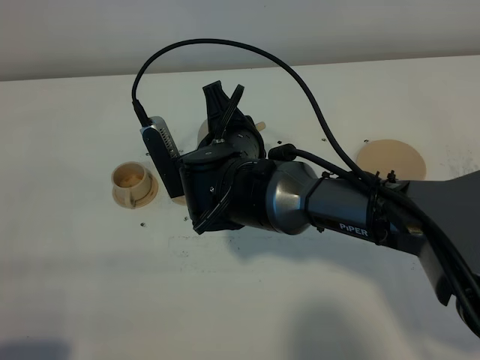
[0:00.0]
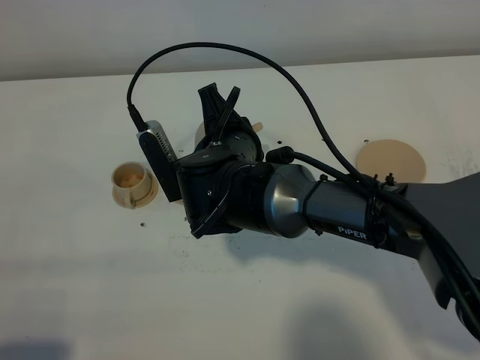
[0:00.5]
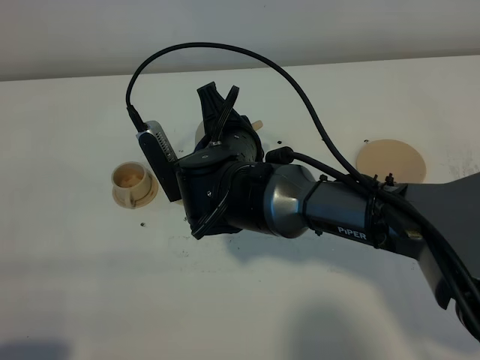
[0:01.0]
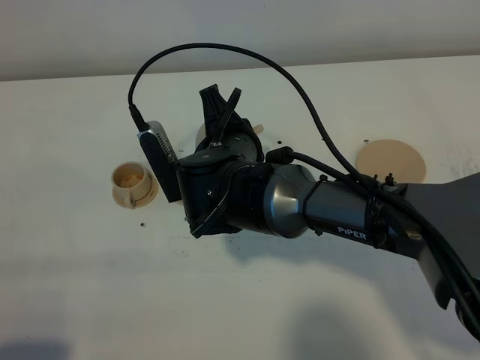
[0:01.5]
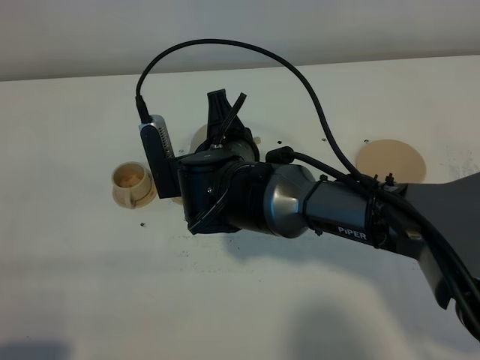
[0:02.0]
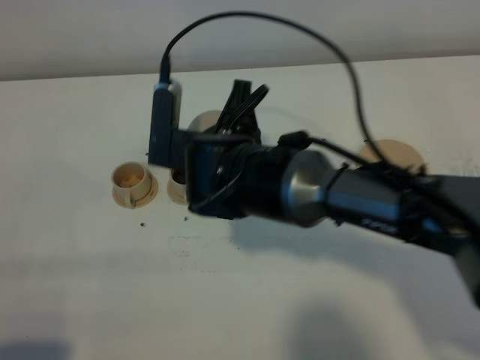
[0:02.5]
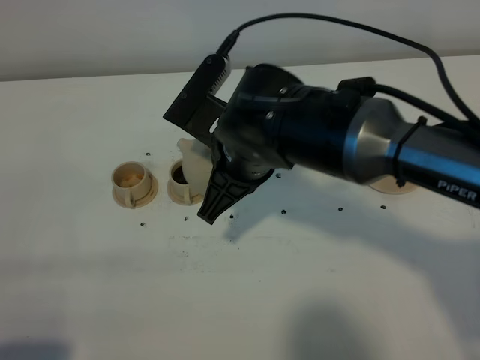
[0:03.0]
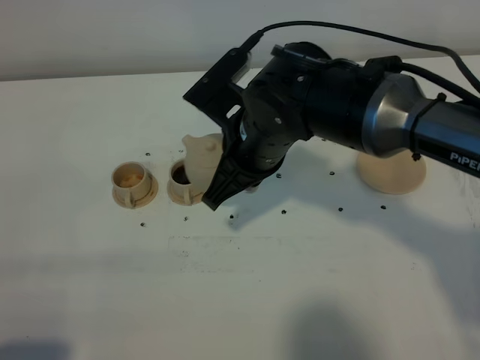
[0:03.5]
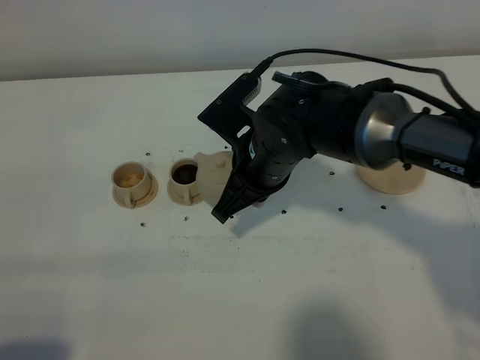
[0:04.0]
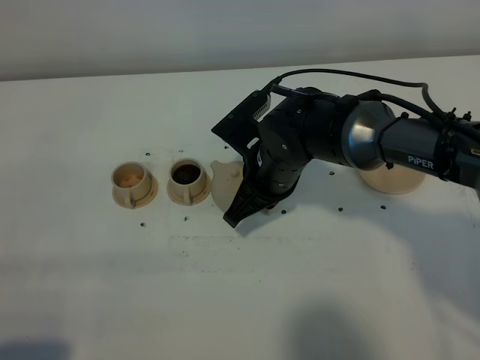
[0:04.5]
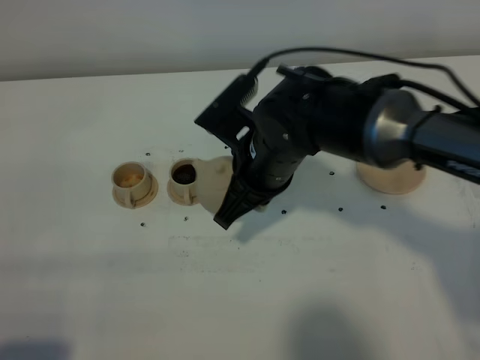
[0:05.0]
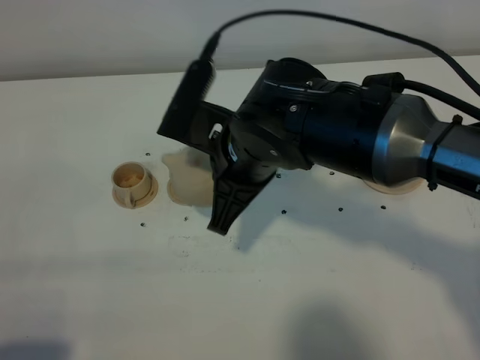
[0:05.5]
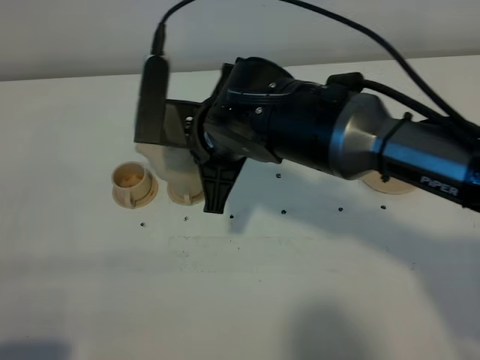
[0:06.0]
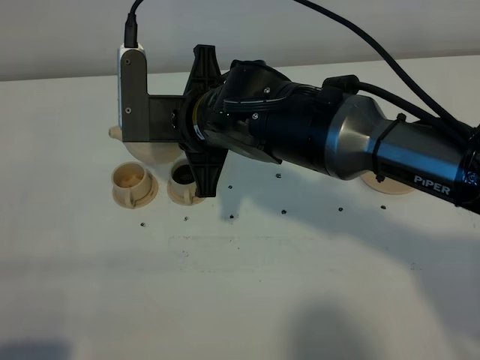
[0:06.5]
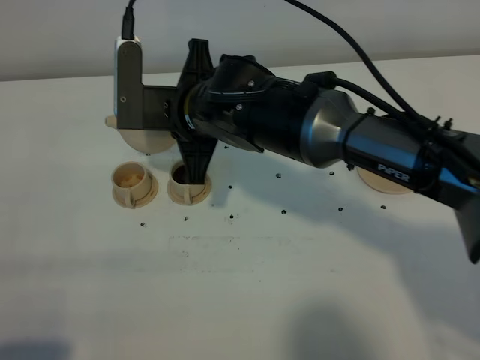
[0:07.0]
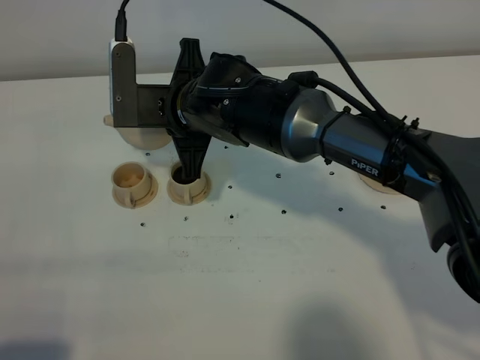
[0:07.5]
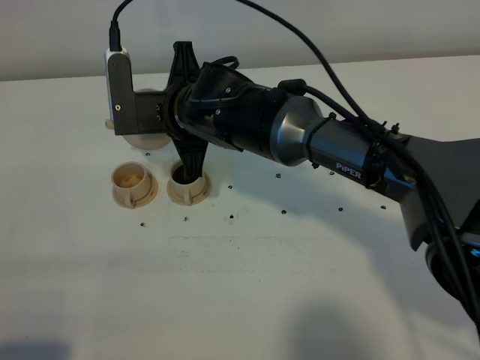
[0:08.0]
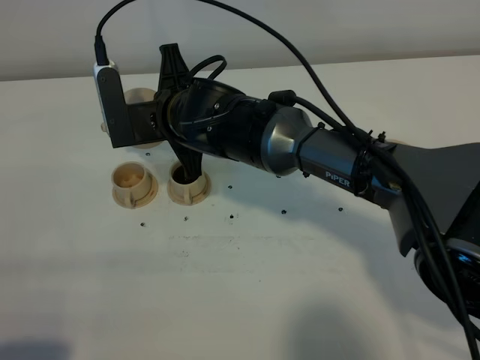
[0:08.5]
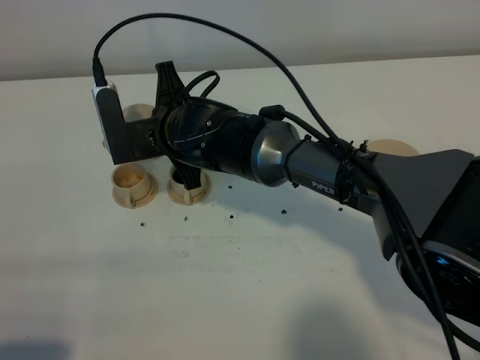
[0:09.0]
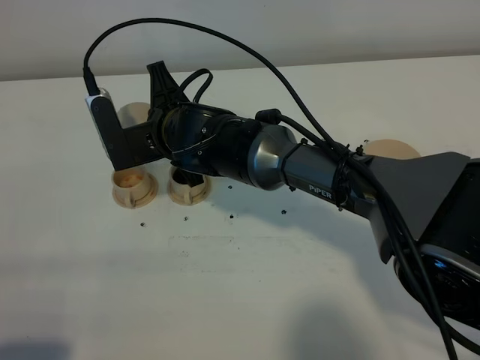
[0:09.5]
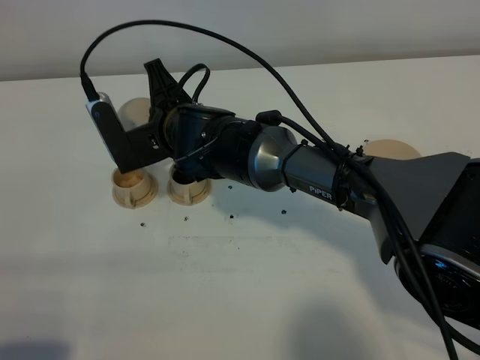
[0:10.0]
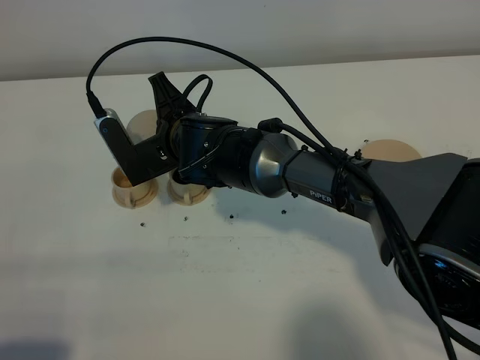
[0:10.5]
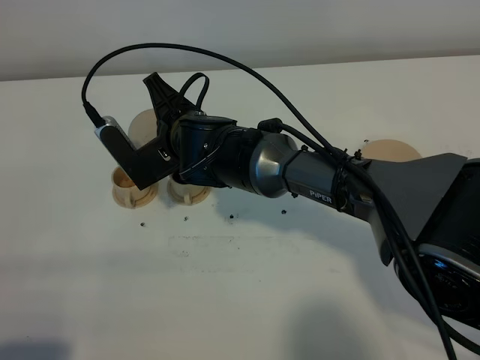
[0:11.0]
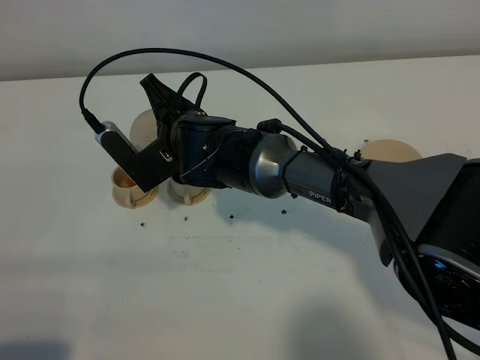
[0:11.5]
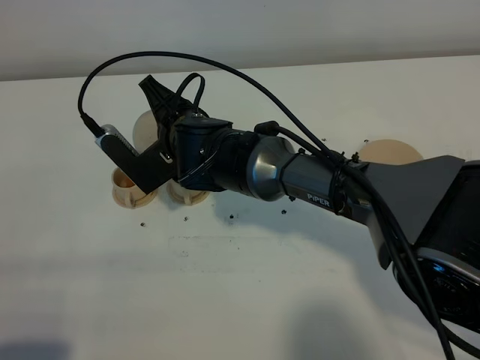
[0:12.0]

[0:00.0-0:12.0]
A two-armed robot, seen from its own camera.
Task of the whole recording: grasp the brown teapot and pour the tea into the two brown teacups one by one, put the brown teapot back in its original place.
0:00.0 to 0:02.0: There are only small adjustments of the grippers.
0:02.0 to 0:04.0: The right gripper moves to the right, roughly 5 cm.
0:04.0 to 0:06.0: The right gripper heads upward, covering roughly 5 cm.
0:06.0 to 0:08.0: The right gripper heads forward, covering roughly 5 cm.
0:10.0 to 0:12.0: There are only small adjustments of the grippers.

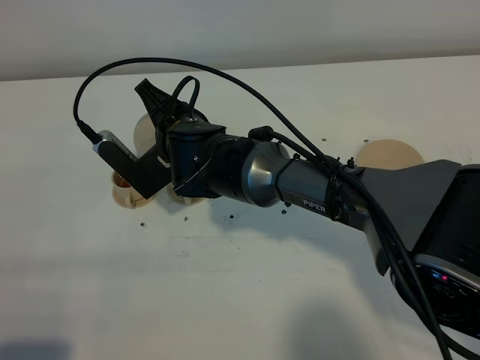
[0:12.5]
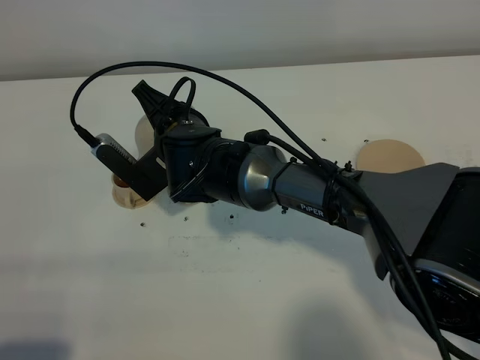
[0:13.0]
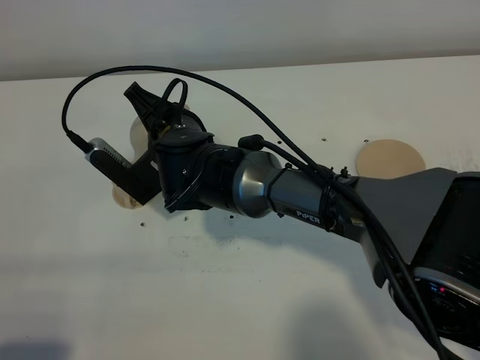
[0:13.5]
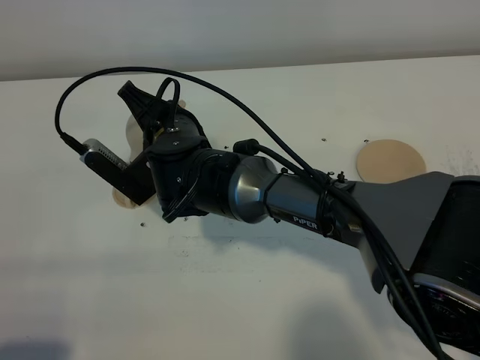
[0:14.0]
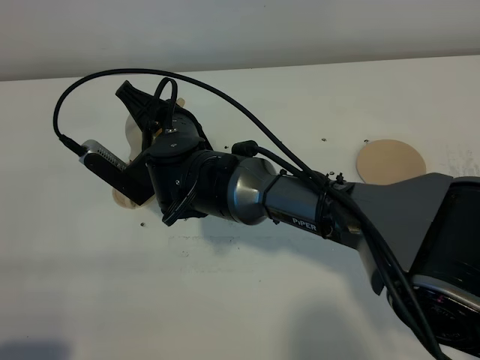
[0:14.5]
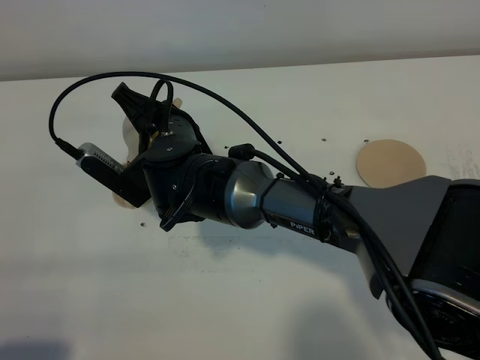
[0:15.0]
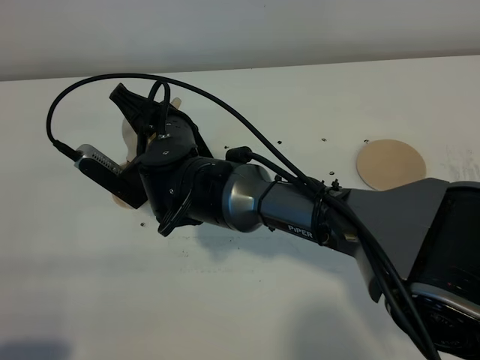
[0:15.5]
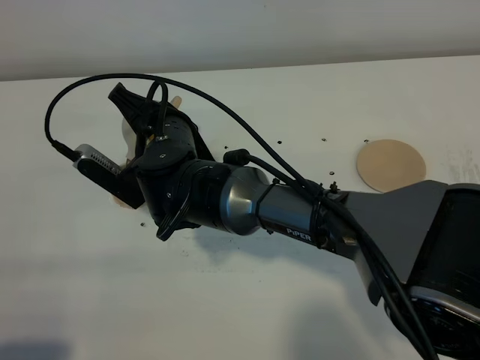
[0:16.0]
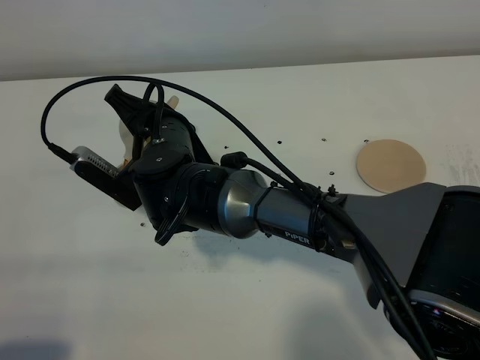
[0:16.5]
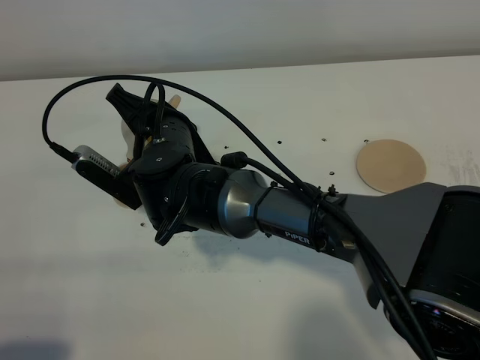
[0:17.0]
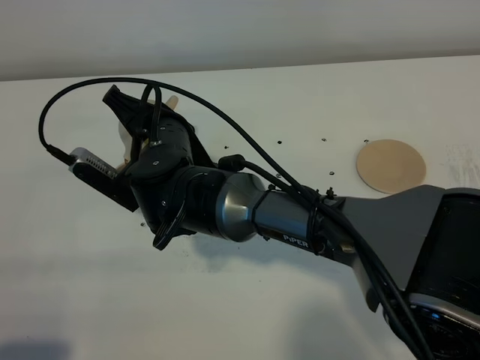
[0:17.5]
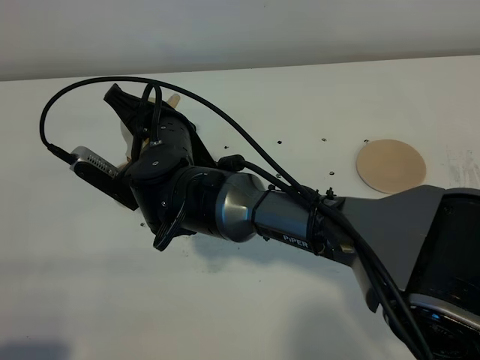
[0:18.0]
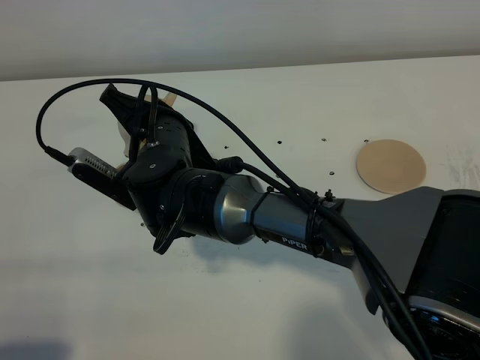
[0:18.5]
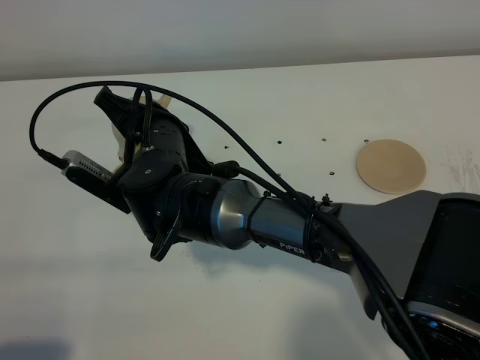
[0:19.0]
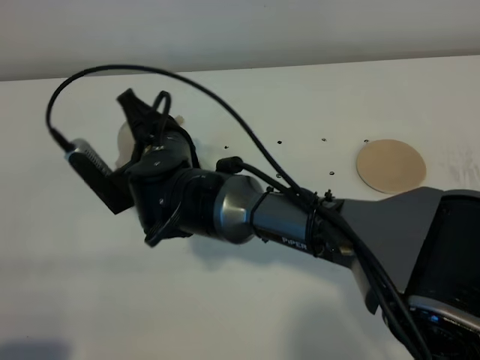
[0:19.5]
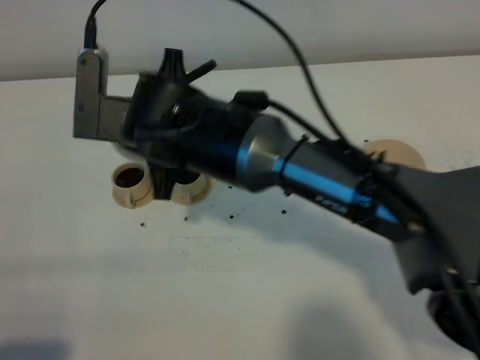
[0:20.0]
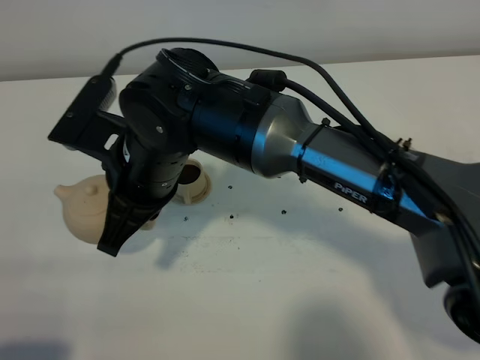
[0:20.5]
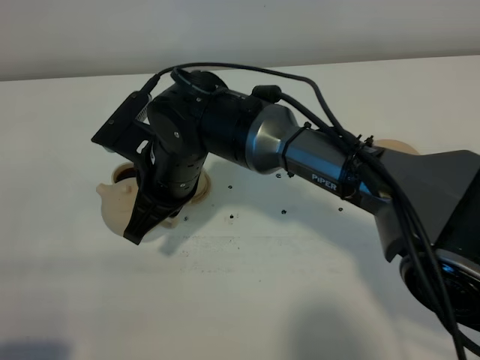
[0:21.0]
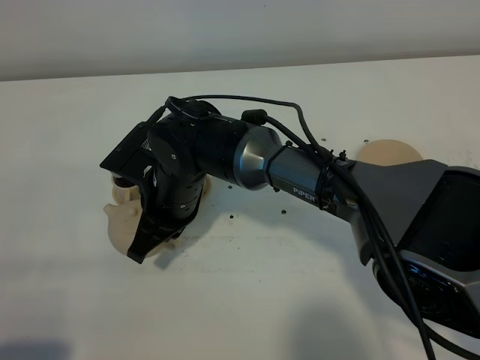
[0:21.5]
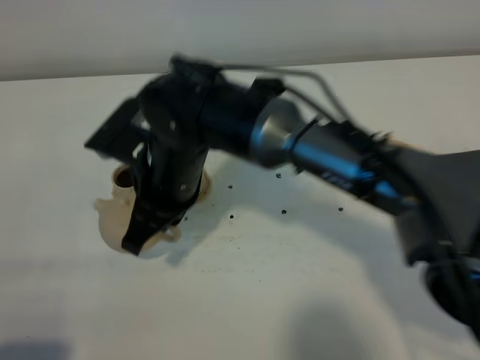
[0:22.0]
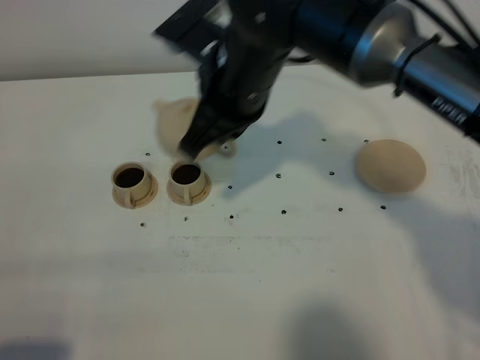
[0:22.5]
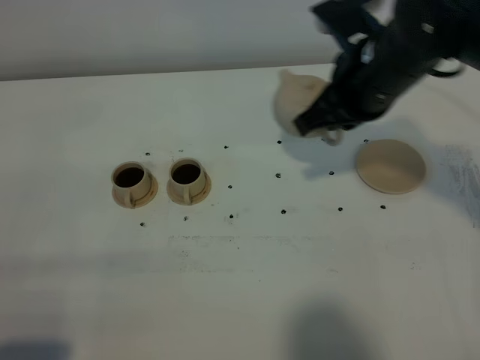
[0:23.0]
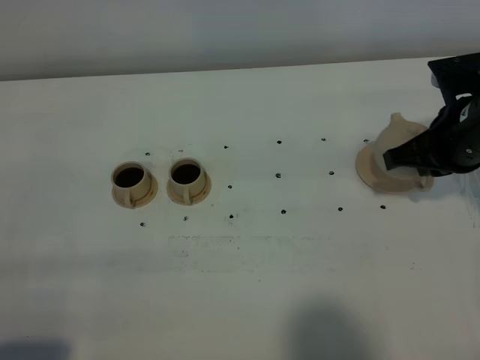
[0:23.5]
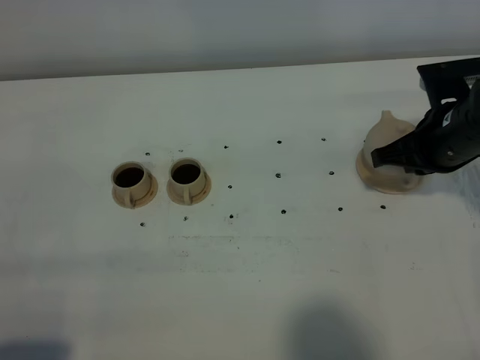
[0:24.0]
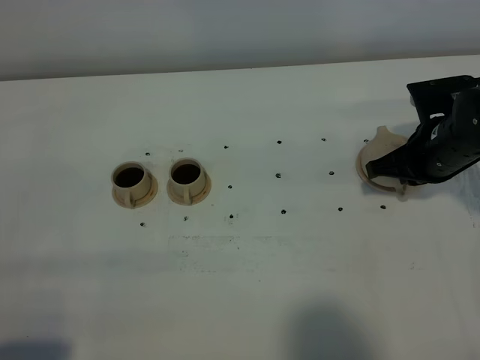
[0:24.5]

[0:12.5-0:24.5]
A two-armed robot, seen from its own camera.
Task of the whole recording: grasp the brown teapot and pour the tea into the two brown teacups one by one, put the brown teapot back in its original place.
Step, 0:12.5 to 0:19.5: Pour tea into the teacup with the right gripper.
0:12.5 to 0:16.5: The grippers move only a little.
0:16.5 to 0:18.5: Both grippers stay about where they are.
0:18.5 to 0:20.5: The right gripper heads upward, covering roughly 5 cm.
0:20.5 to 0:22.5: The right gripper goes some 15 cm to the right, forward and upward.
0:22.5 to 0:24.5: The right gripper is displaced to the right and downward by some 25 cm.

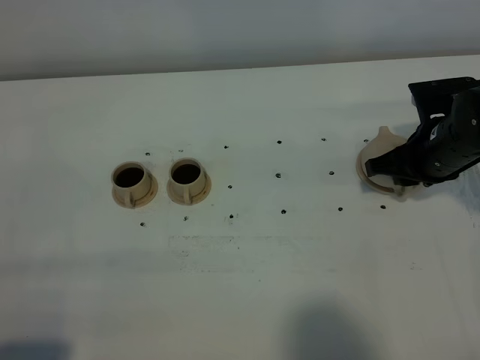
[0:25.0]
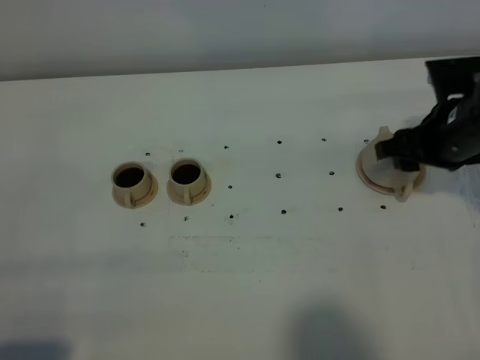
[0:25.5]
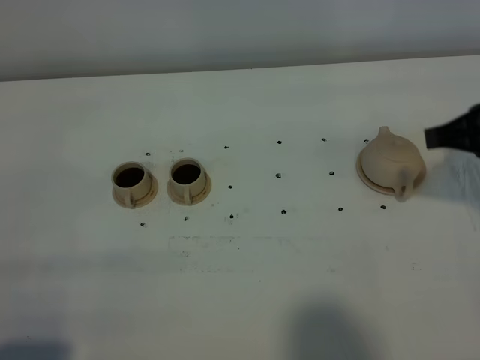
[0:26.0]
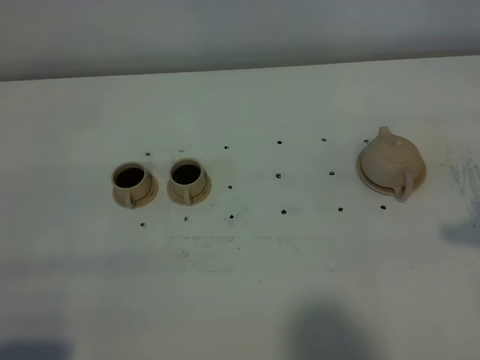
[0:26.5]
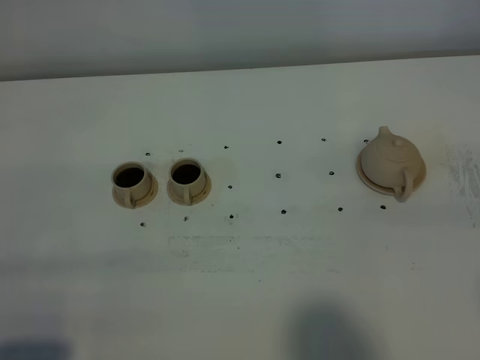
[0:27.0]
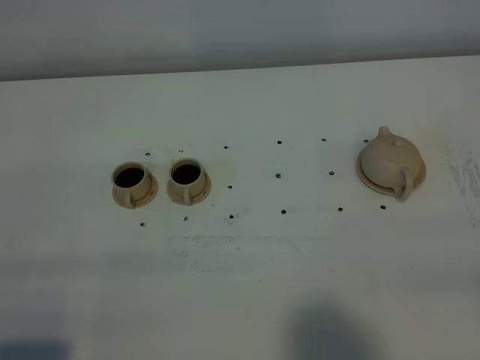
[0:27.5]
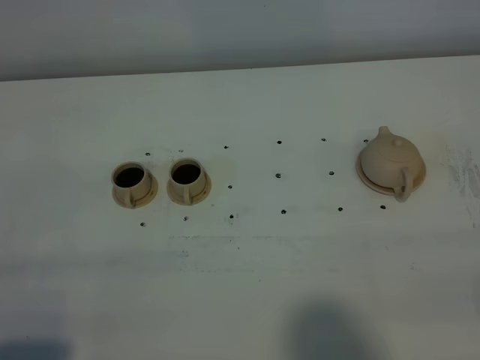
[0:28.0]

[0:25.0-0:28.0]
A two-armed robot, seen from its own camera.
Task of the whole recording: grasp the brown teapot and pour the tea into the two brown teacups one by one, put the brown teapot back in its original place.
0:25.0 to 0:26.5: The right gripper moves backward and upward, some 25 cm, and closes its fingers.
